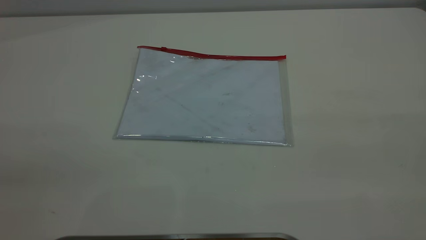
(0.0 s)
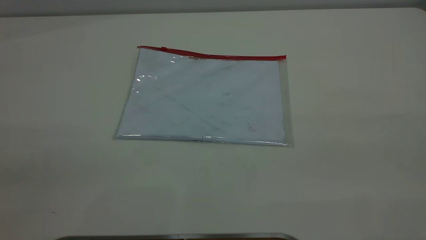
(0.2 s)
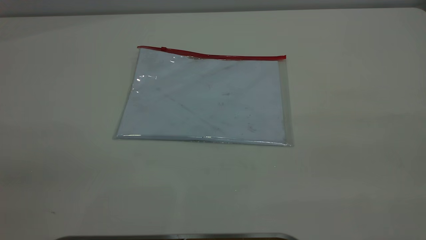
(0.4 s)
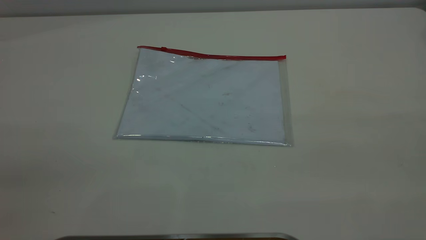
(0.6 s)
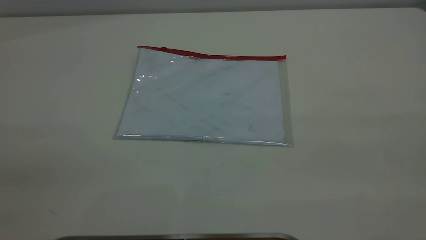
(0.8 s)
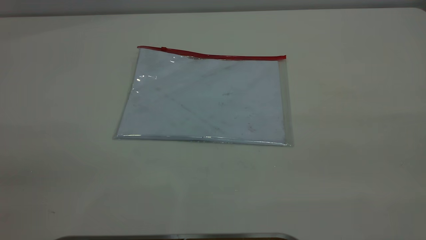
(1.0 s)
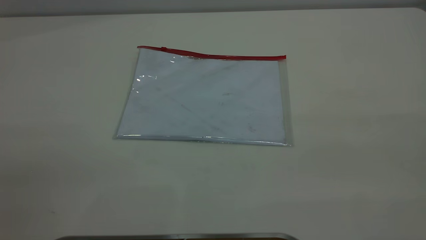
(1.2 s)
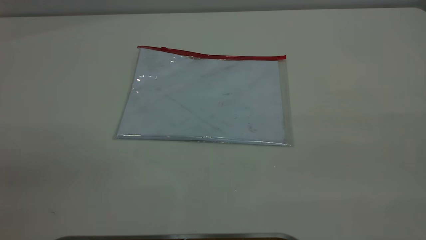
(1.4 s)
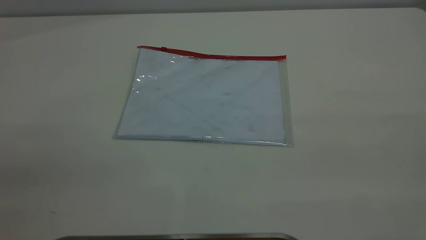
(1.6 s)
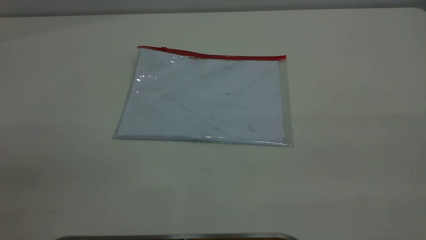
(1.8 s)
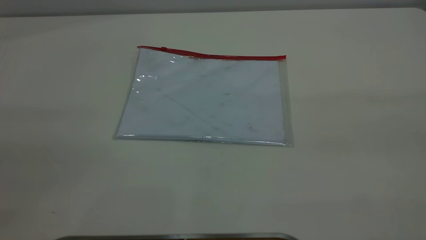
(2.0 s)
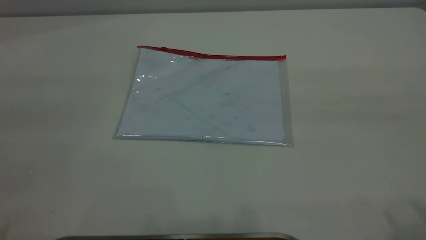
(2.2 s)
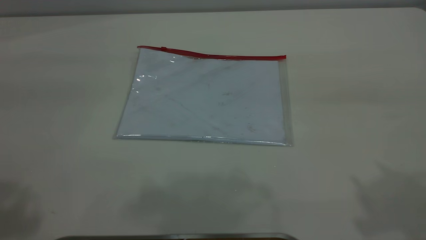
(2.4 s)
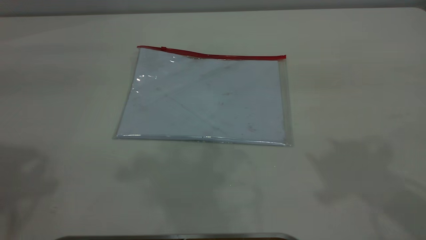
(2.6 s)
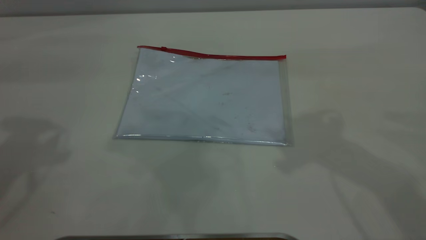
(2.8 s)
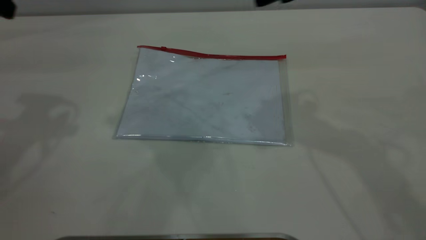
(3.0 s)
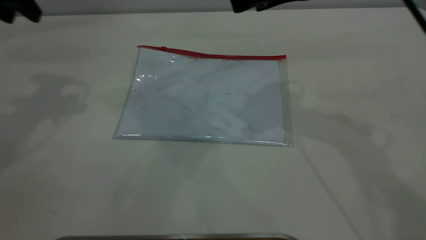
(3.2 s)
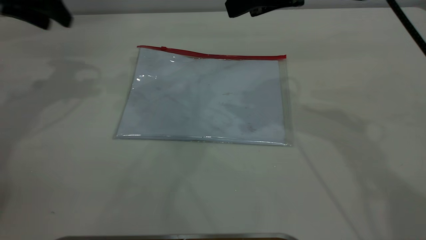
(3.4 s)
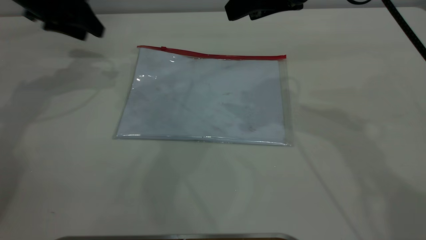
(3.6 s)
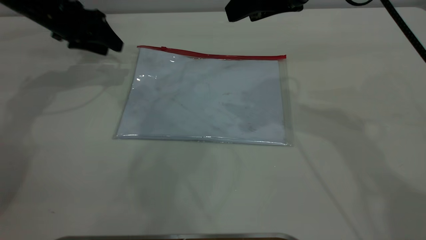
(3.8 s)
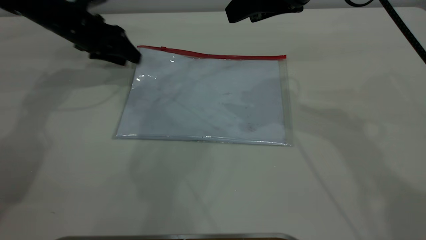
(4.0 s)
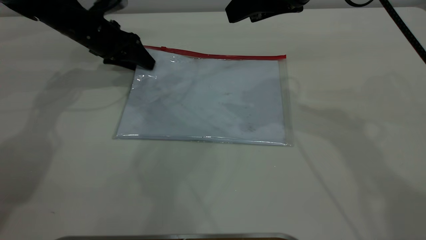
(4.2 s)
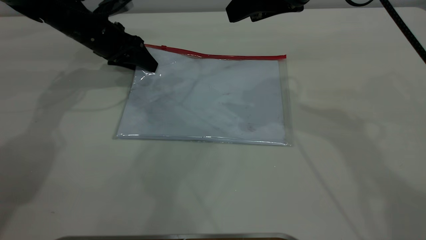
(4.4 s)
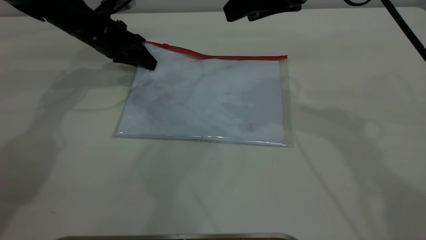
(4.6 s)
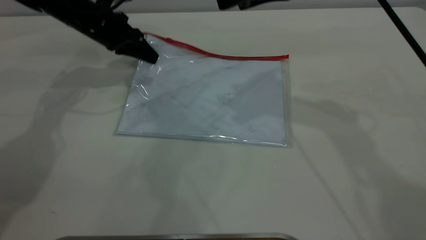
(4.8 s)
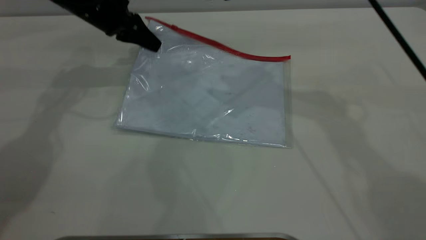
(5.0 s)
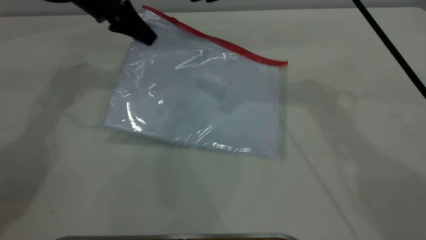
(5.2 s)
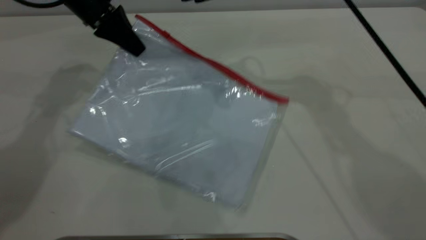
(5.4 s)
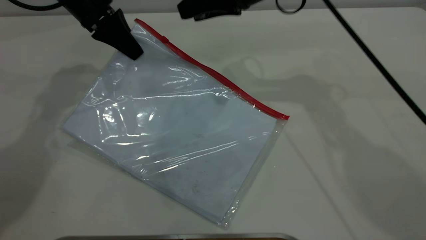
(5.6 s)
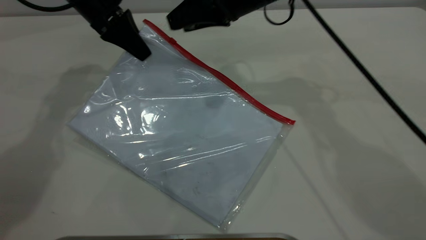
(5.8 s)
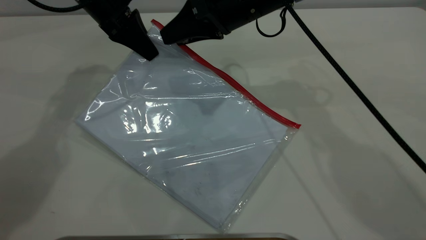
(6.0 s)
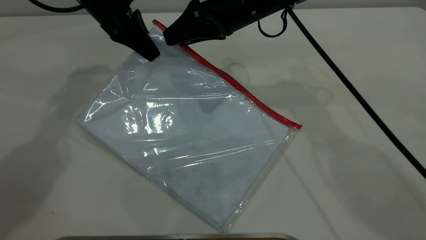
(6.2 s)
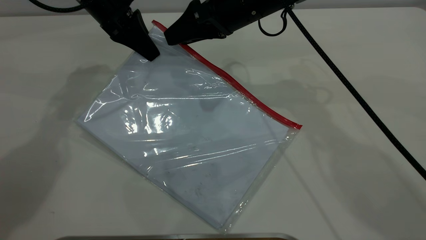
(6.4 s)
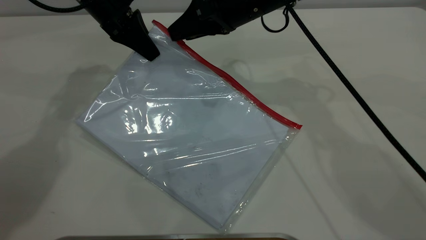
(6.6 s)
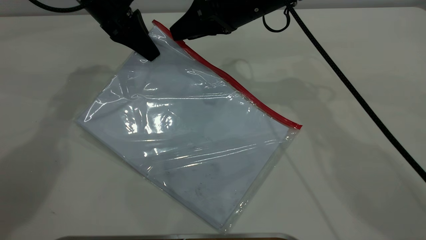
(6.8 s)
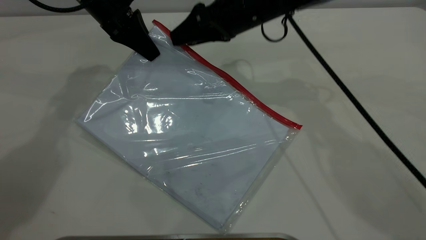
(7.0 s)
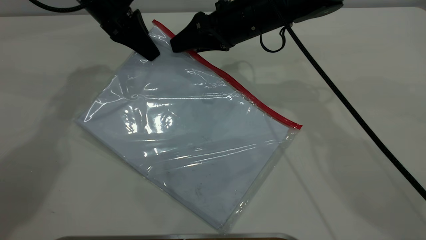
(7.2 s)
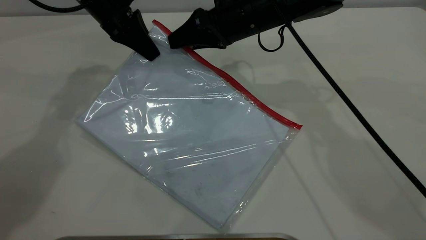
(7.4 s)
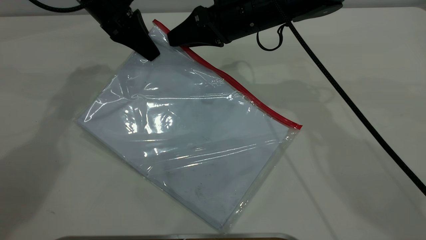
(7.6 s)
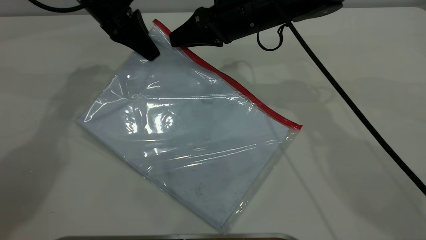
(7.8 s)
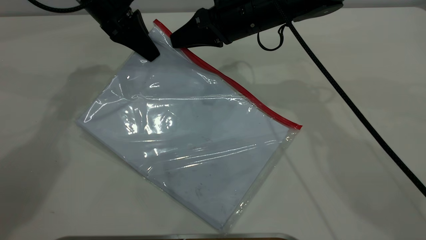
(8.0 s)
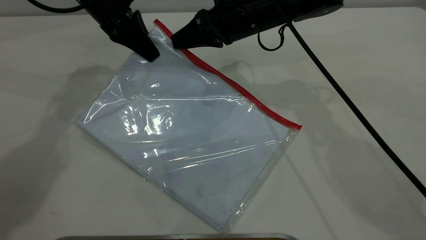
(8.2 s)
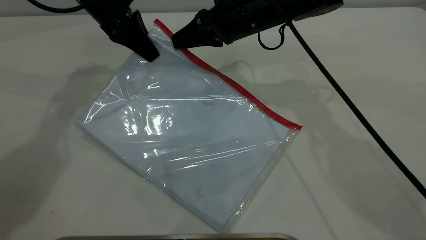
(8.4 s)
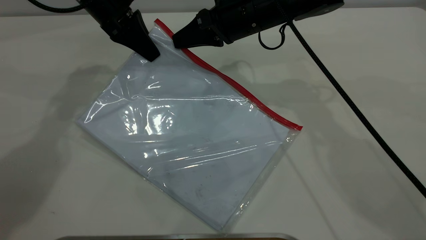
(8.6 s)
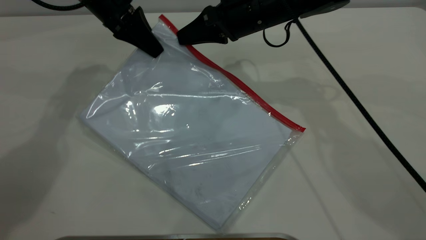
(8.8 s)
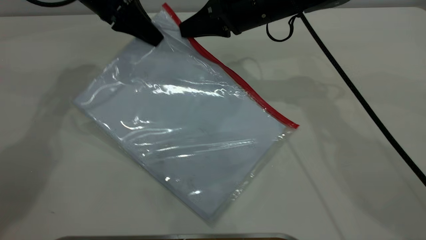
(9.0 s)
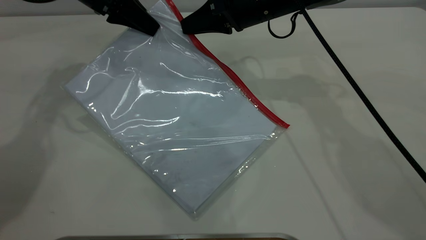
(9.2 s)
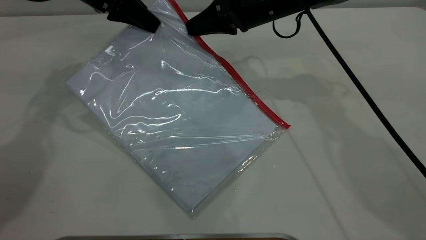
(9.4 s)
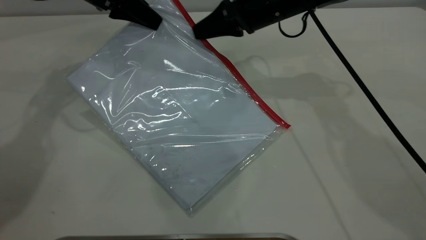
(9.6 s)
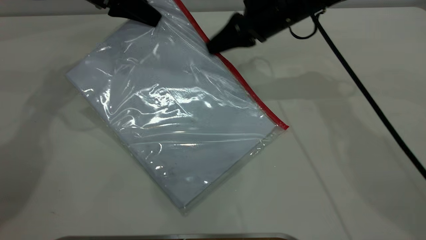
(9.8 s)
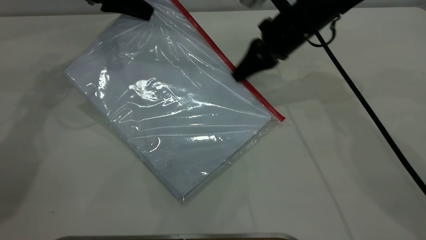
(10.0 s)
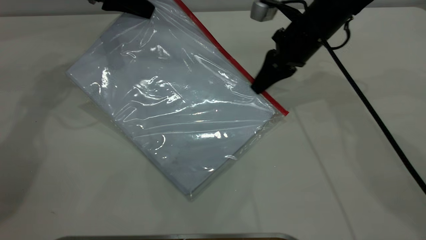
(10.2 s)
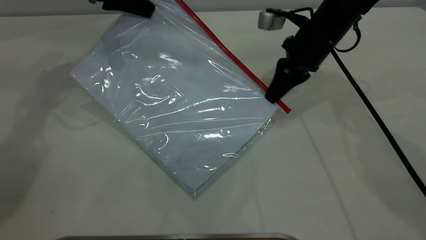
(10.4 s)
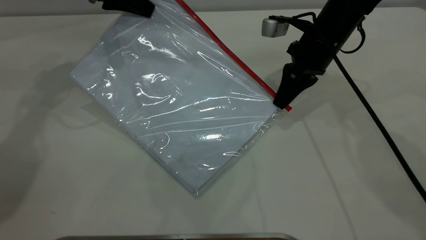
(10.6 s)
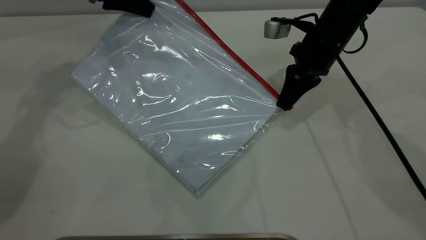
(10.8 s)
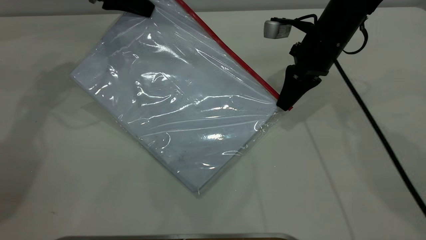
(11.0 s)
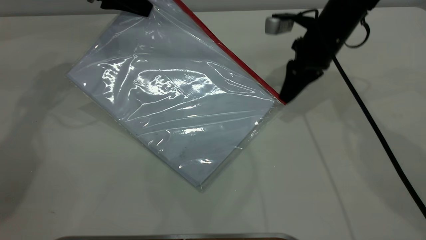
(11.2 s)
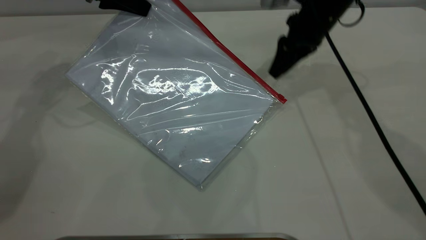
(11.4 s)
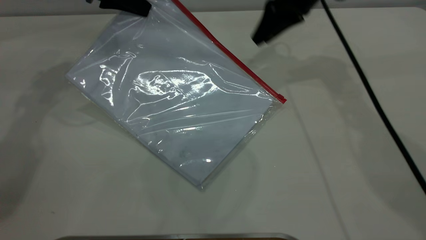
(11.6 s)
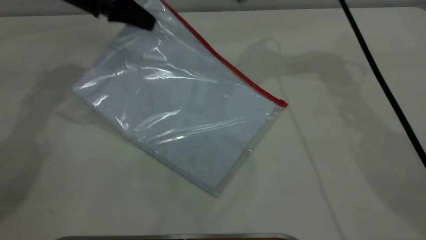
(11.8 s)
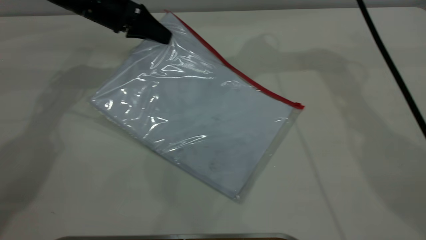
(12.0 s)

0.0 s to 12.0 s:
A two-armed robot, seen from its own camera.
Step, 0.0 to 4.8 s: Pick up the transparent plastic bag with the left gripper.
Step, 5.2 to 11.2 s: Pulling up the zipper on the transparent plastic bag with the right gripper to close it.
0.0 to 1.6 s: Both grippers stay about where they are.
3.0 to 4.4 s: The left gripper shifts approximately 25 cm downward and forward.
4.4 to 6.0 s: The right gripper travels to the left, downward and forward by some 10 cm, while the left gripper moves upward, some 10 cm, and closes.
6.0 to 7.6 s: The right gripper closes.
7.6 to 9.0 s: The right gripper closes up.
9.0 to 10.4 s: The right gripper shifts some 10 cm to the right.
10.4 to 12.0 s: The right gripper shifts some 20 cm upward, and opens its fingers; the left gripper moves downward, roughly 5 cm.

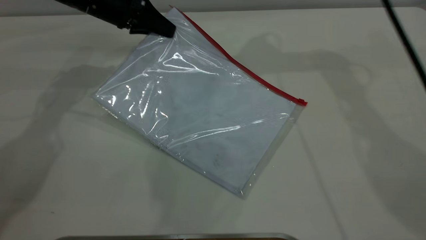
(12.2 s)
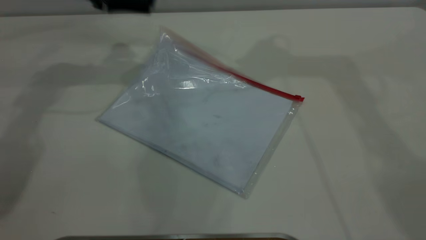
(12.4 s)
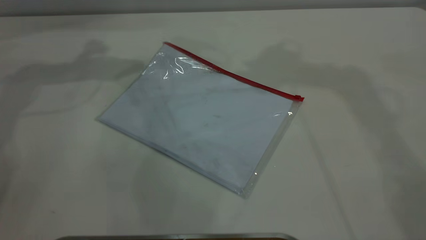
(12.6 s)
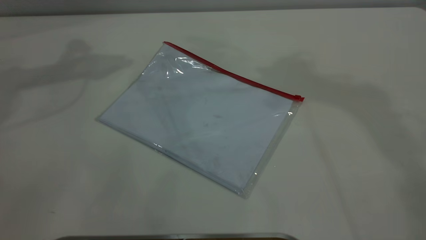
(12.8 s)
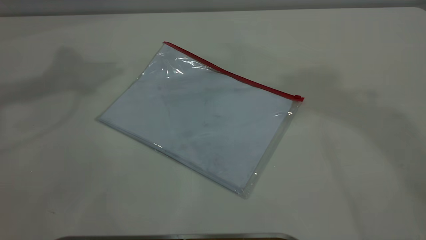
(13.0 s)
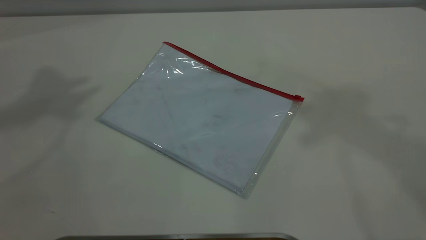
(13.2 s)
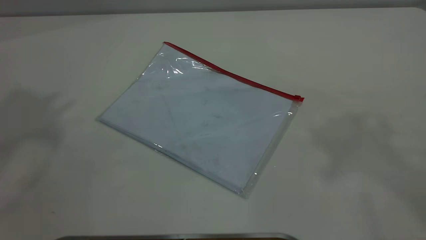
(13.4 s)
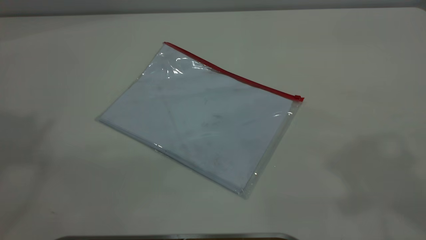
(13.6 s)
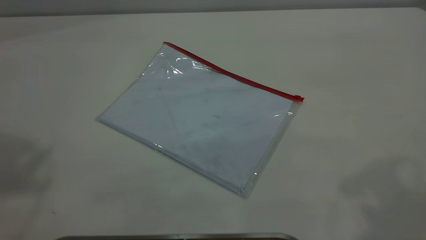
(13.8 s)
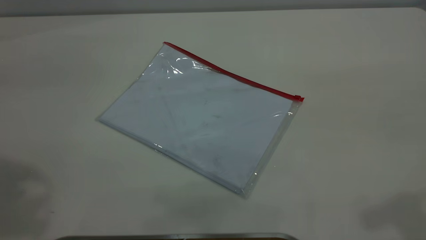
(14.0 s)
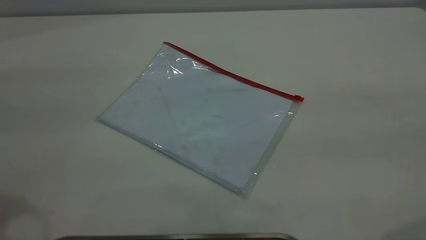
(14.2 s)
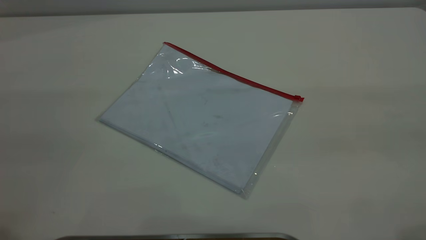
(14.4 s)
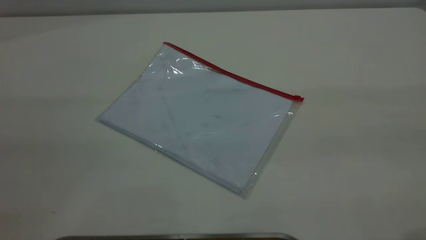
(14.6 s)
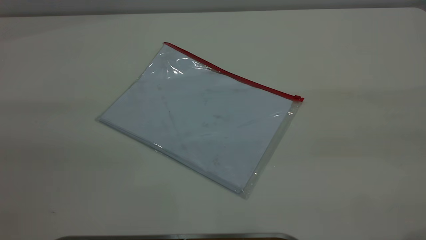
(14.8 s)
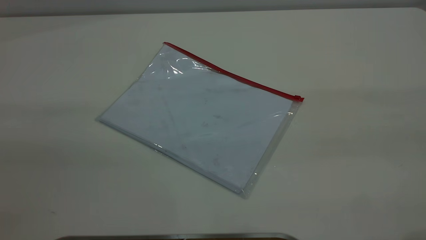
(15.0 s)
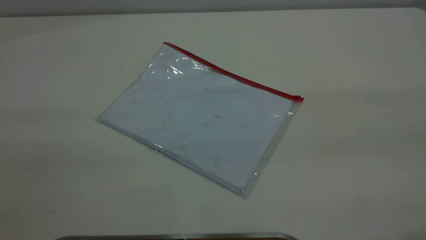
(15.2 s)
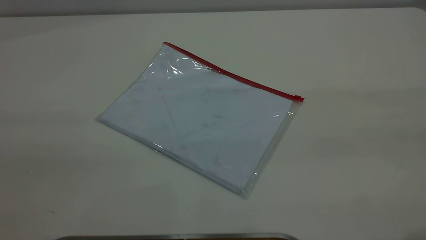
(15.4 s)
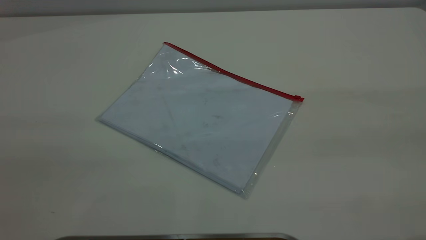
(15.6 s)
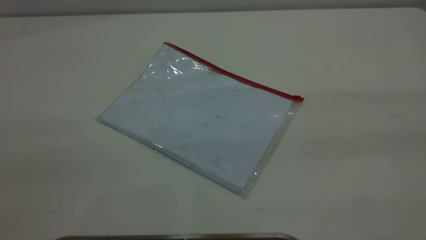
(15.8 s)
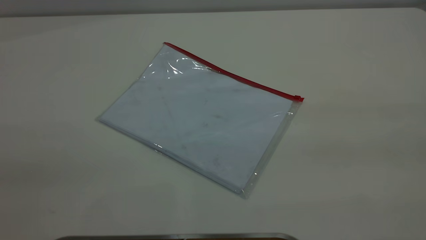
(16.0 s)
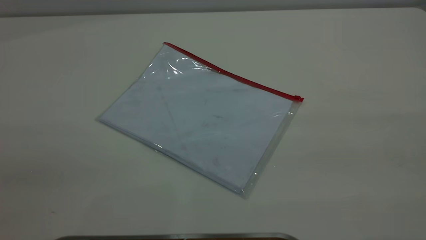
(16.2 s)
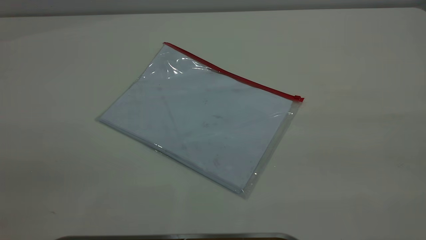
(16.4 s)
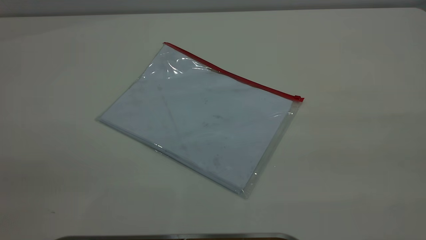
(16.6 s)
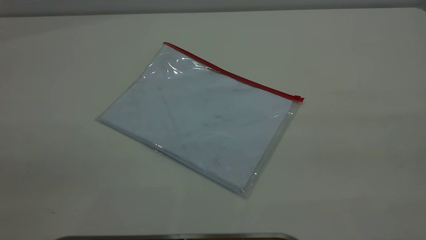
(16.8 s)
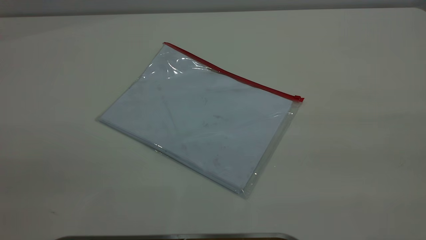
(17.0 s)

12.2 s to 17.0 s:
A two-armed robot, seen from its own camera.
12.2 to 13.8 s: The right gripper is displaced backward by roughly 30 cm; the left gripper travels upward and backward by approximately 40 cm, and opens up.
